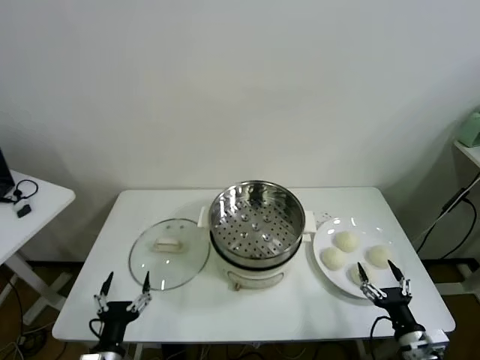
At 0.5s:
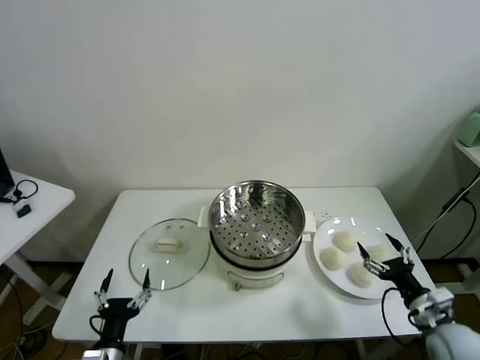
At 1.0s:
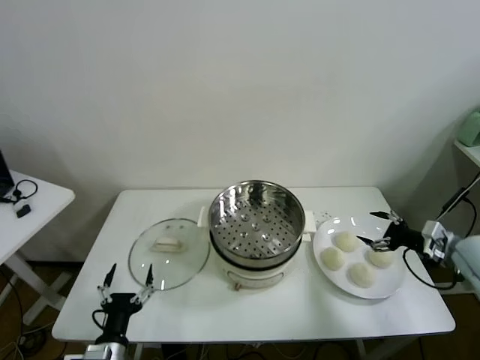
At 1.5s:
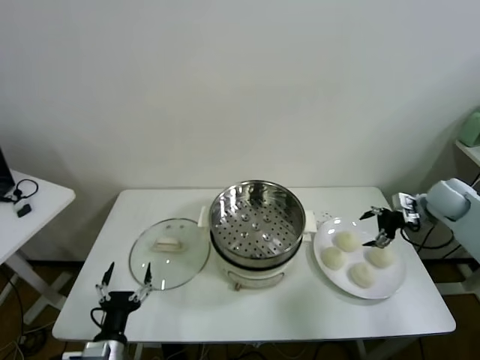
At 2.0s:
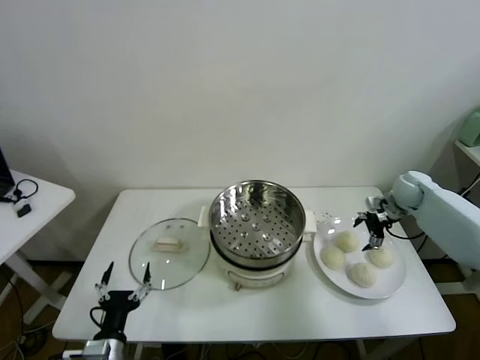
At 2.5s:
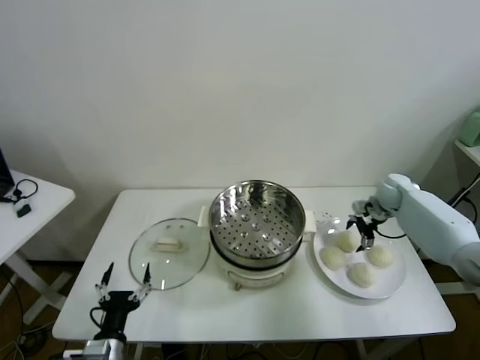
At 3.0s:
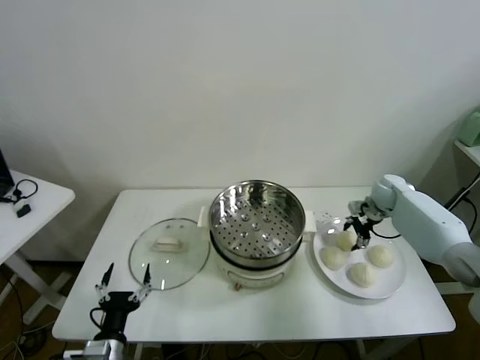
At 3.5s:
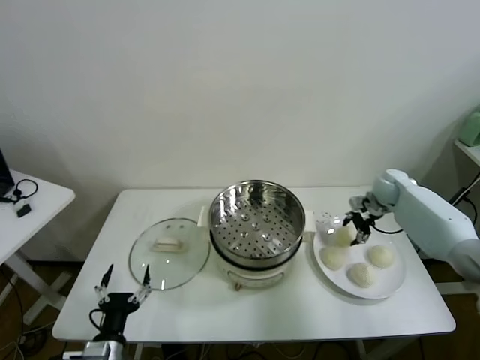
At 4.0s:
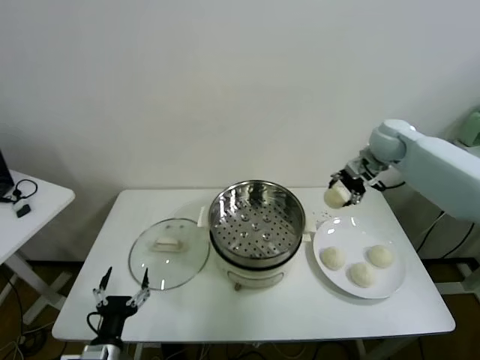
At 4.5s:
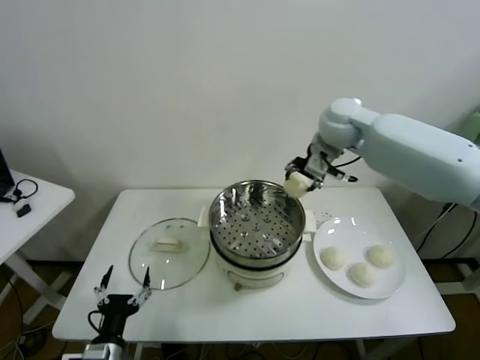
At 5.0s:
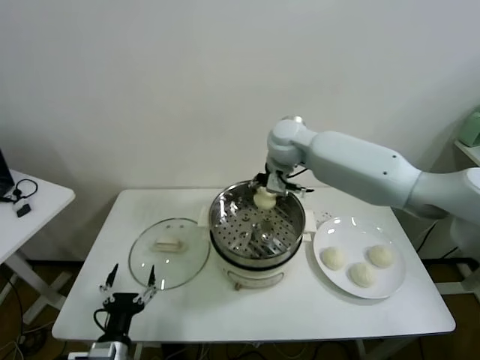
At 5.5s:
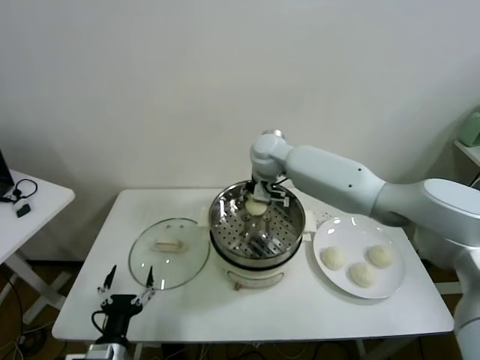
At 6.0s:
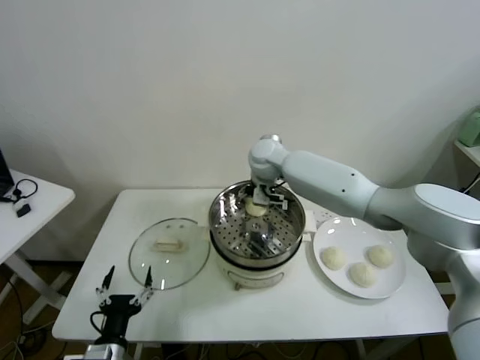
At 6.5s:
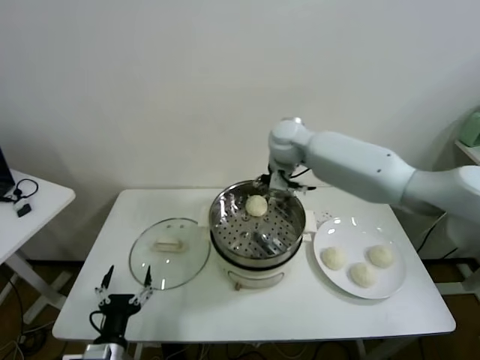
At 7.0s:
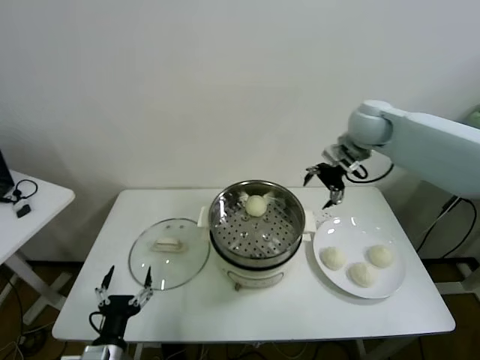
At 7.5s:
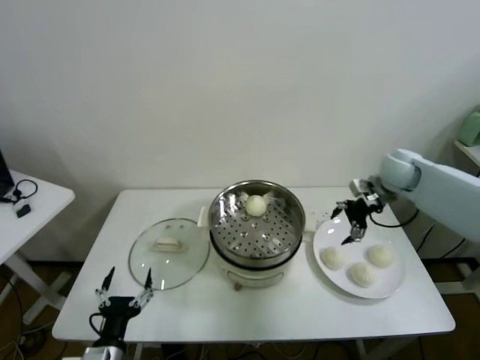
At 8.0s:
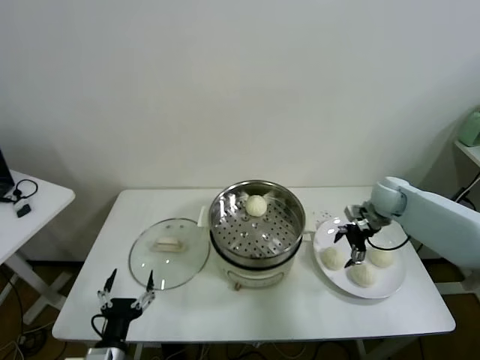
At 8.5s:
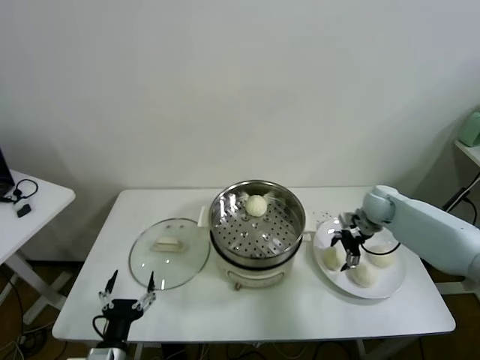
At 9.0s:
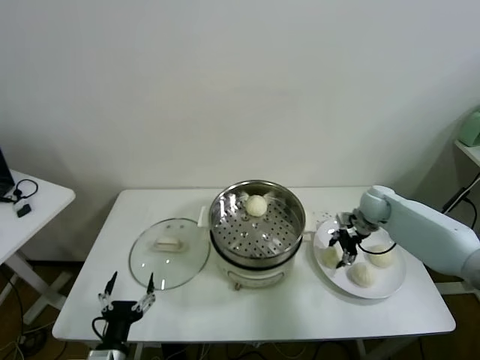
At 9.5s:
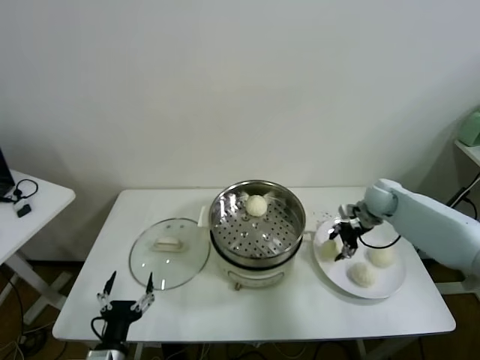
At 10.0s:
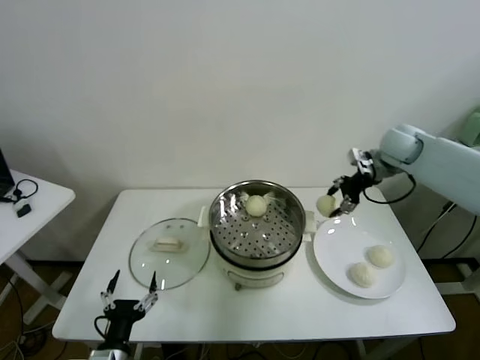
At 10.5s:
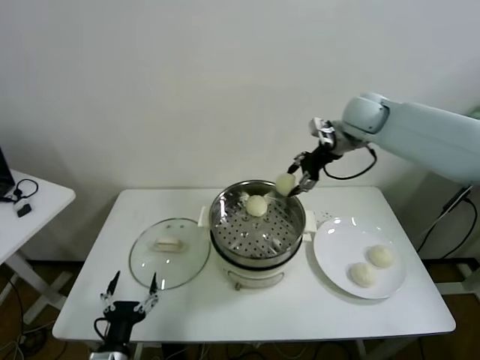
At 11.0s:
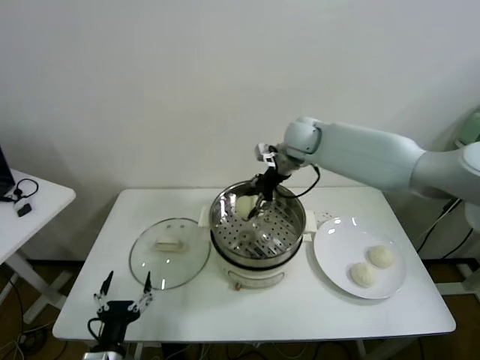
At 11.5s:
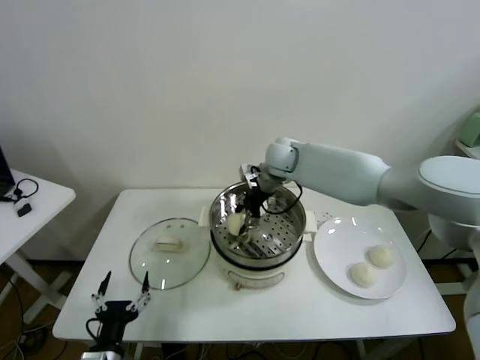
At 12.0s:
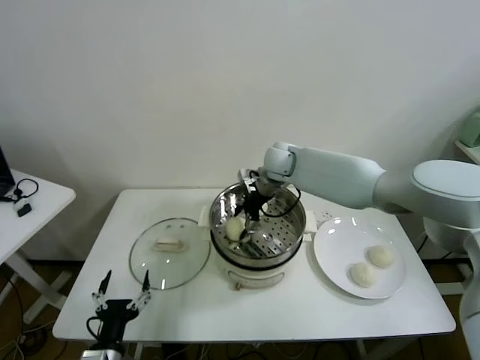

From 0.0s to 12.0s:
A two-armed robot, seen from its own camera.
Task of the whole recording: take steamed baozi put them in steamer.
Step, from 0.0s to 2.5s: Grasp the baozi in the plate with right gripper.
Step, from 3.5s to 6.0s: Place the baozi on the steamer with right gripper.
Step, from 6.5s to 8.5s: Grasp the baozi in the plate with right gripper.
From 2.0s to 4.0s: The right gripper goes approximately 20 cm upward and to the left, and closes its fingers.
From 4.0s to 6.0s: The right gripper goes approximately 25 cm to the left, and opens.
From 6.0s to 8.0s: The right gripper shifts roughly 30 cm to the right.
From 8.0s to 10.0s: The right gripper travels upward by approximately 15 cm, and closes.
From 10.0s to 12.0s: The right gripper travels to the left by about 25 cm, and opens its fingers.

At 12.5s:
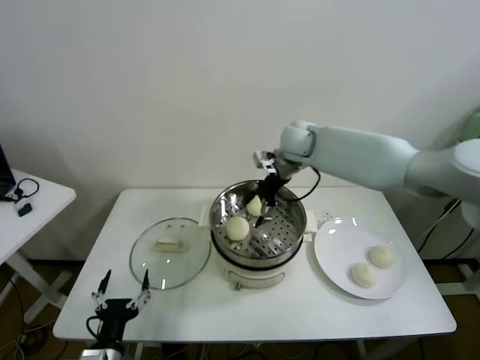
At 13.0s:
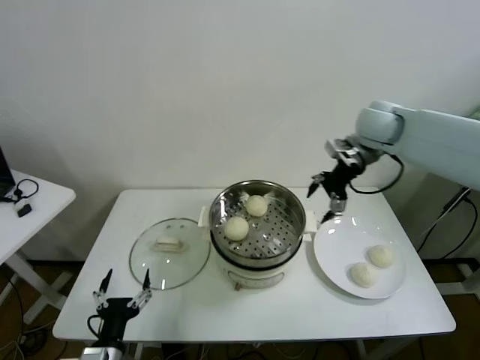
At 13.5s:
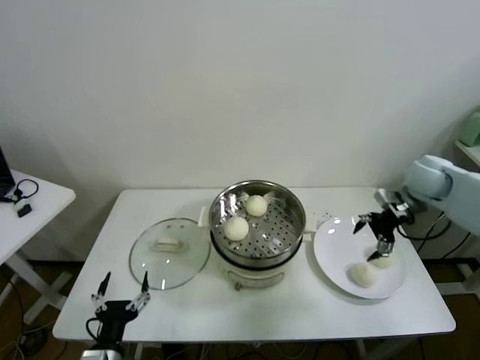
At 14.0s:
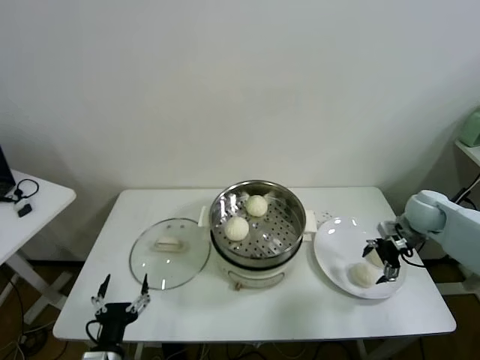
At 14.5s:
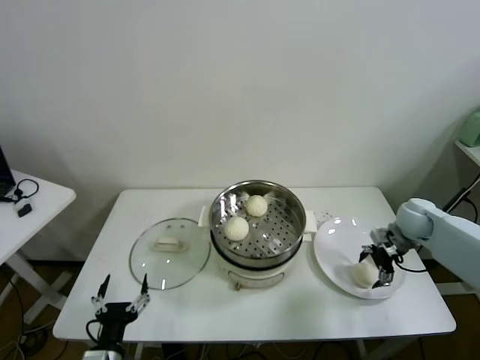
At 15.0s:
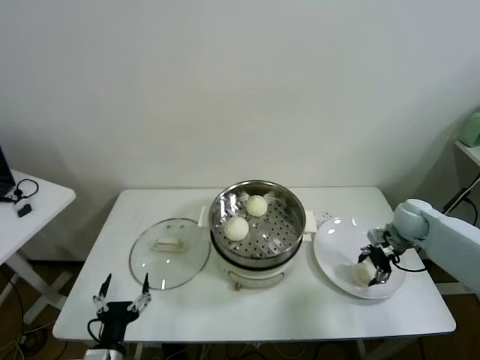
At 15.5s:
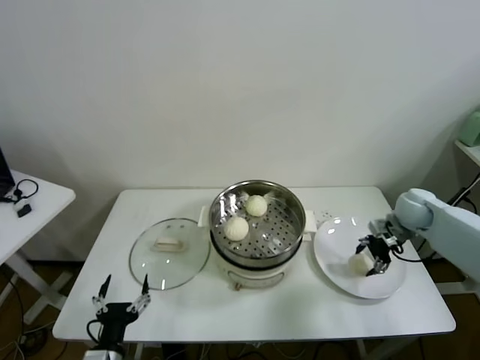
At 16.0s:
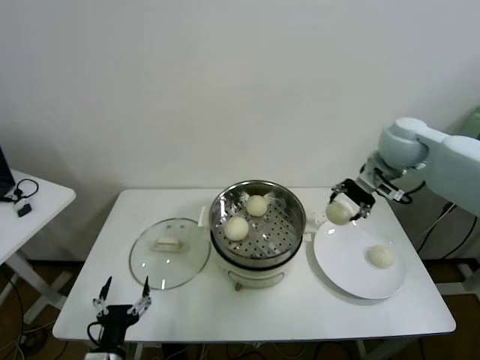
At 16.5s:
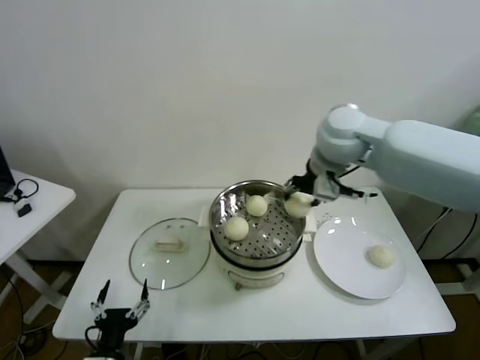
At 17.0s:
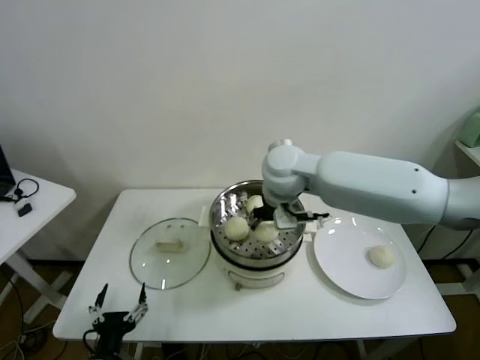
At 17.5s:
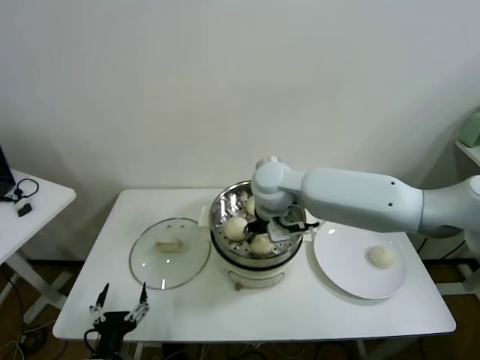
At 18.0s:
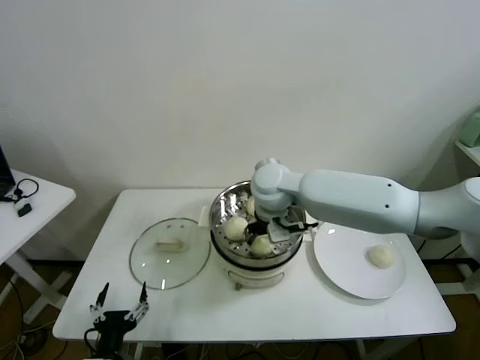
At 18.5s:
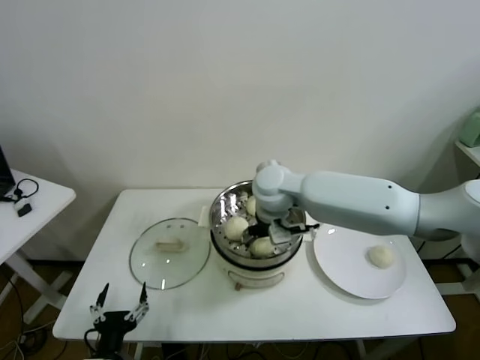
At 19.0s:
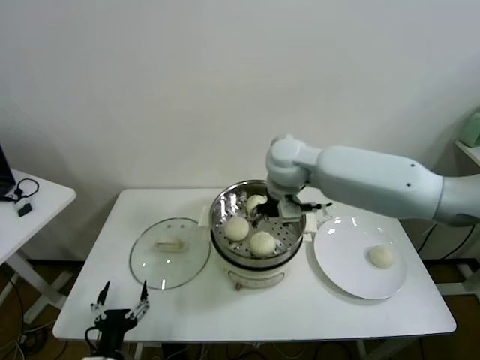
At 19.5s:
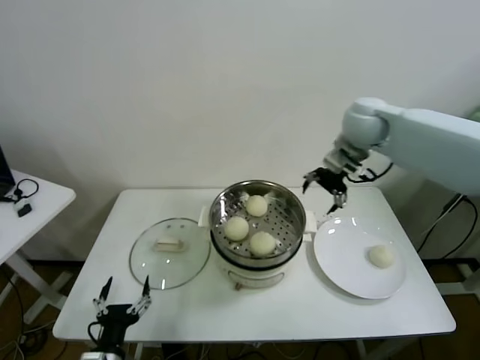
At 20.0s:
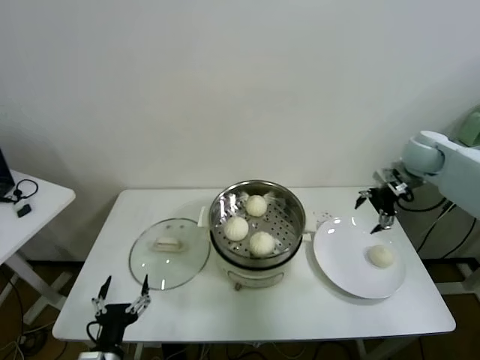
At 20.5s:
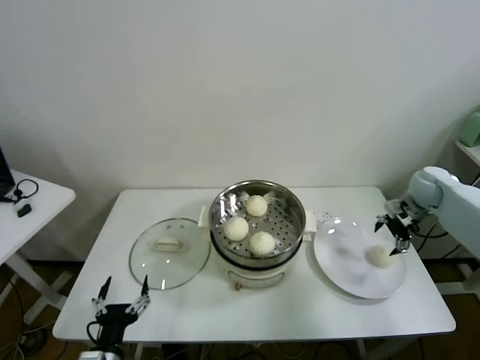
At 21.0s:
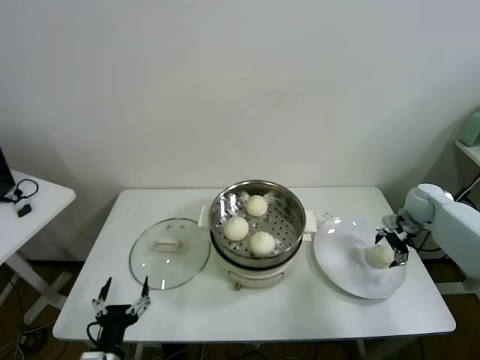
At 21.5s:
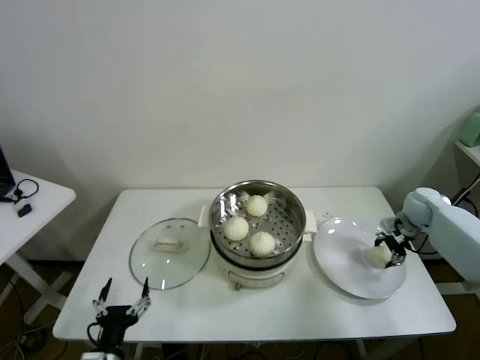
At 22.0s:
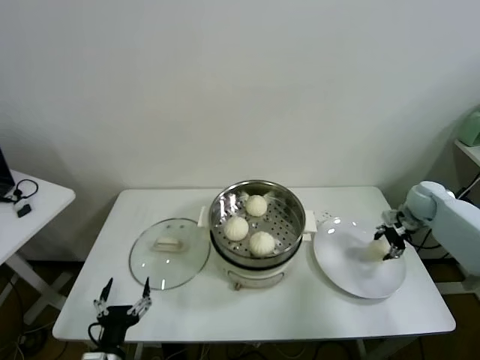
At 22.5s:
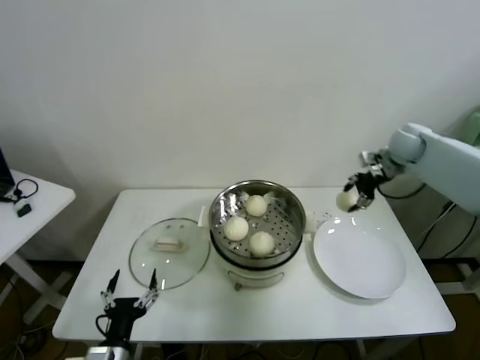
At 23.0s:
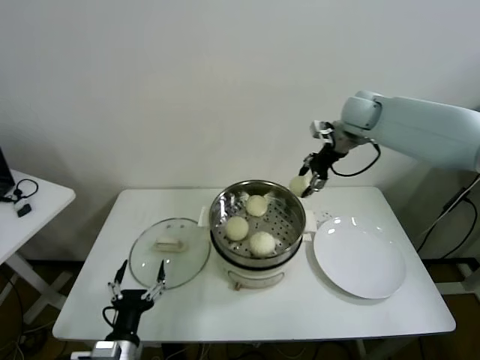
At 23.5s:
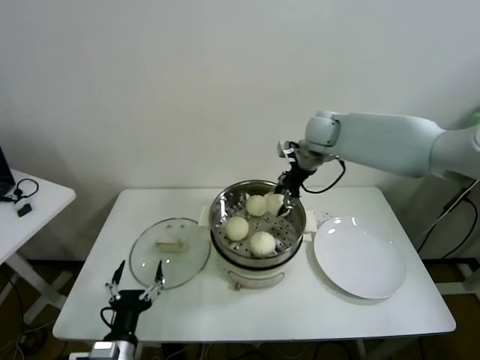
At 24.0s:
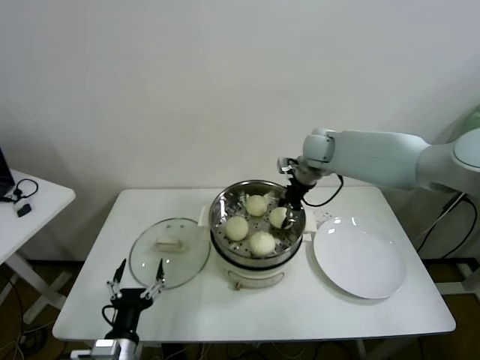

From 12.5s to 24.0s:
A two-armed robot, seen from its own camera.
Task of the whole recording: take steamed baozi put them in steamer.
Step, from 12.5s to 14.5s: Grasp the baozi in the plate with right gripper.
Step, from 15.0s to 18.5s: Place the baozi on the steamer with right gripper.
Step, from 19.0s to 21.0s: Grasp the baozi in the plate with right gripper.
From 12.5s to 14.5s: The right gripper is displaced to the right and downward by roughly 35 cm.
From 14.5s to 16.5s: The right gripper travels to the left and upward by some 35 cm, and closes up.
From 16.5s to 18.5s: The right gripper shifts about 15 cm downward and to the left, and opens up.
From 18.5s to 20.0s: The right gripper is displaced to the right by approximately 35 cm.
From 20.0s to 22.0s: The right gripper shifts roughly 15 cm downward and to the right, and closes its fingers.
From 22.0s to 24.0s: The right gripper travels to the left and upward by roughly 30 cm.

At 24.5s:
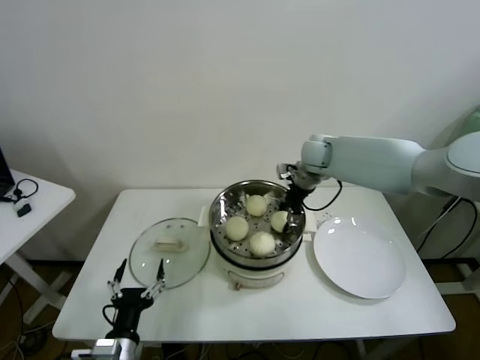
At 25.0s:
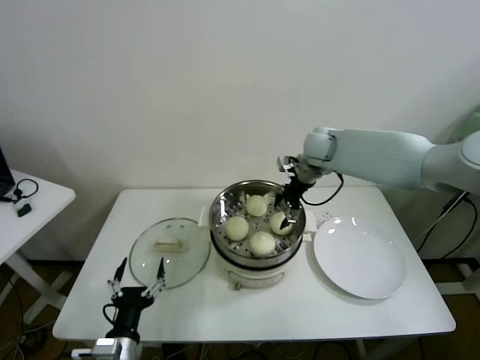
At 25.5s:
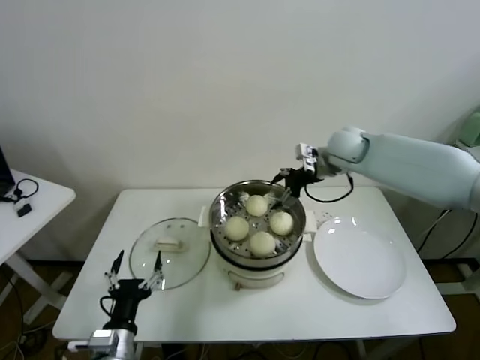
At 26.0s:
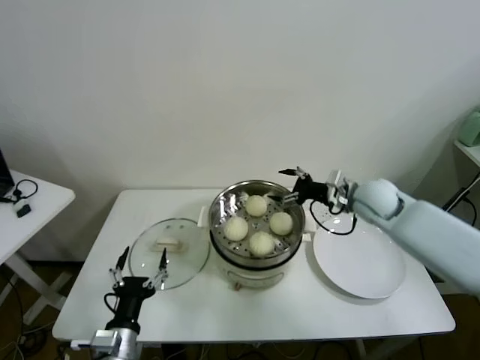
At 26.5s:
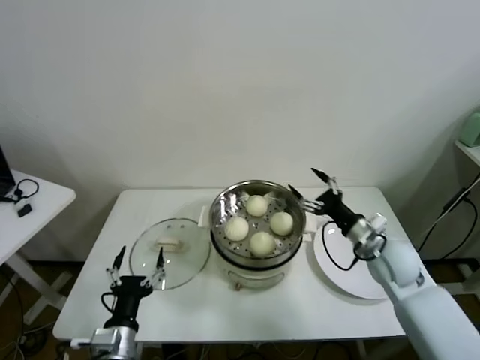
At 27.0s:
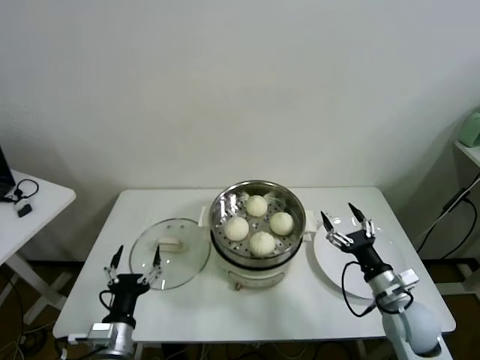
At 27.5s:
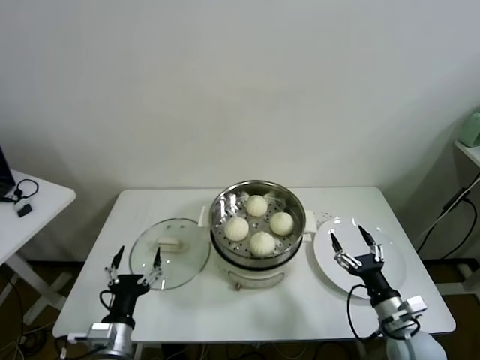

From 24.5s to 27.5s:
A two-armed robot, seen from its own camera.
Task of the whole recording: take steamed baozi put them in steamer.
From 24.5s to 26.0s: The right gripper goes some 15 cm to the right and backward, and opens.
From 26.0s to 27.5s: The right gripper goes approximately 30 cm backward and downward.
